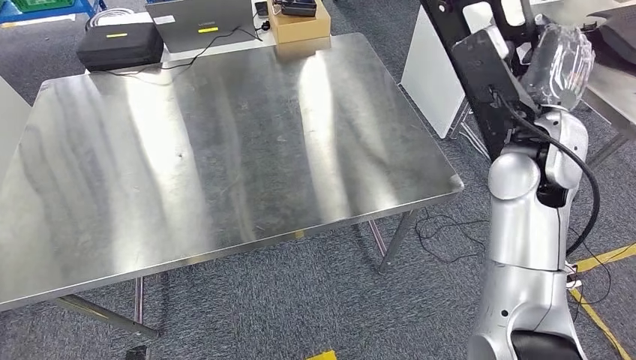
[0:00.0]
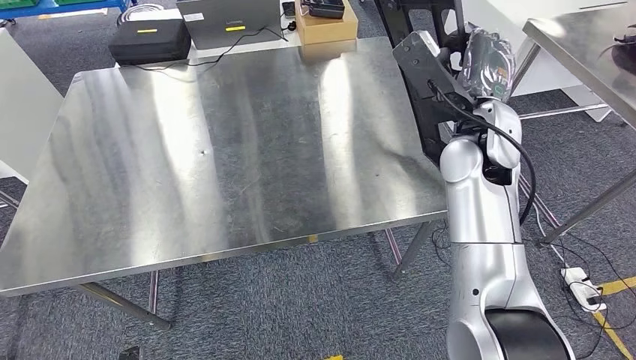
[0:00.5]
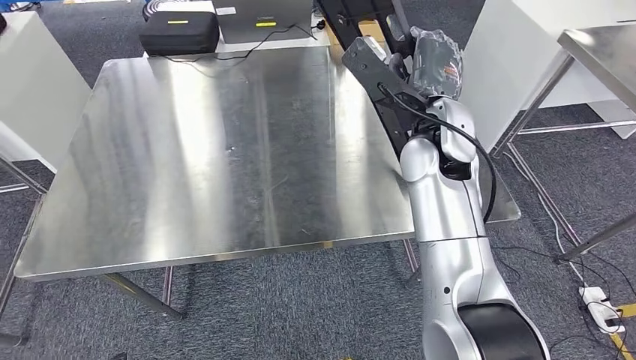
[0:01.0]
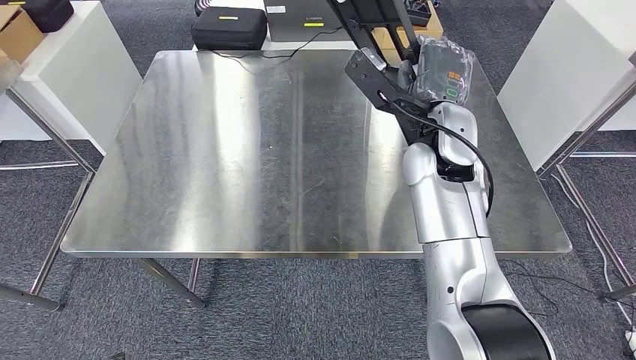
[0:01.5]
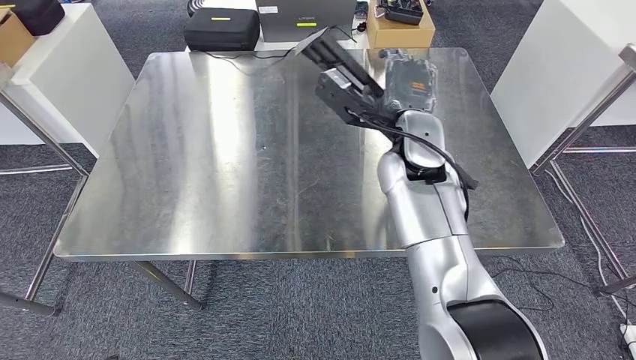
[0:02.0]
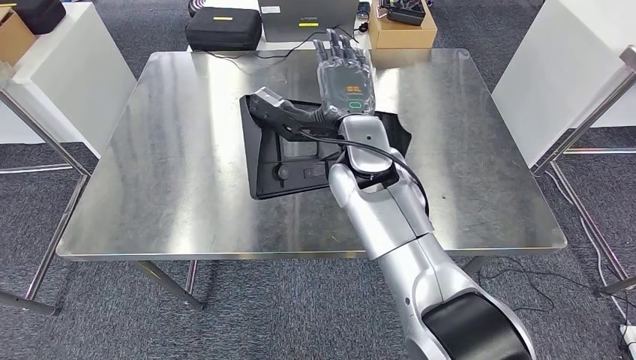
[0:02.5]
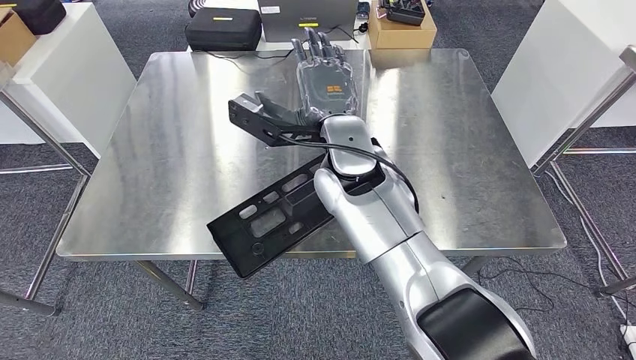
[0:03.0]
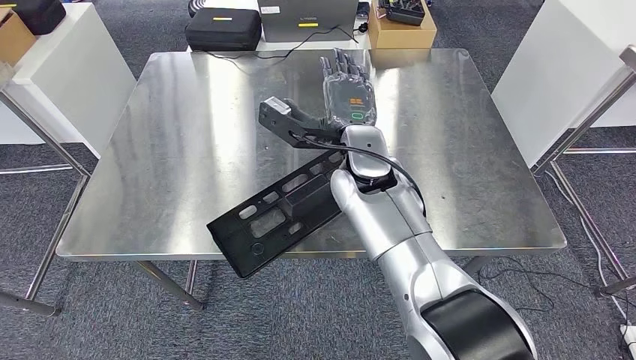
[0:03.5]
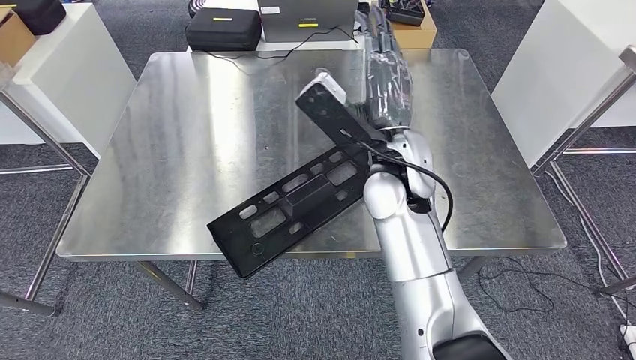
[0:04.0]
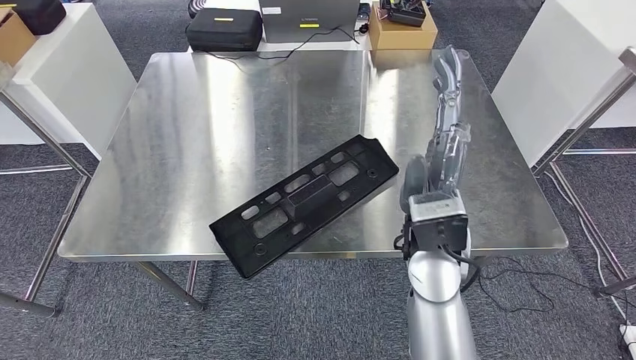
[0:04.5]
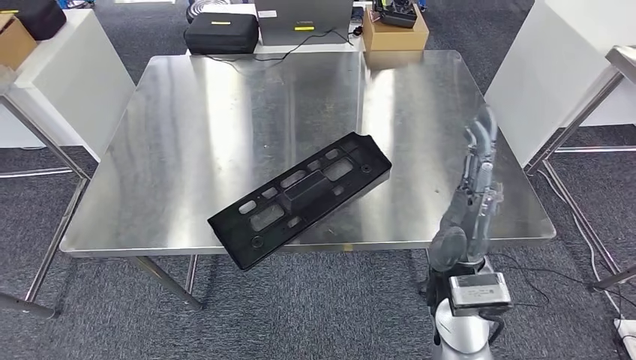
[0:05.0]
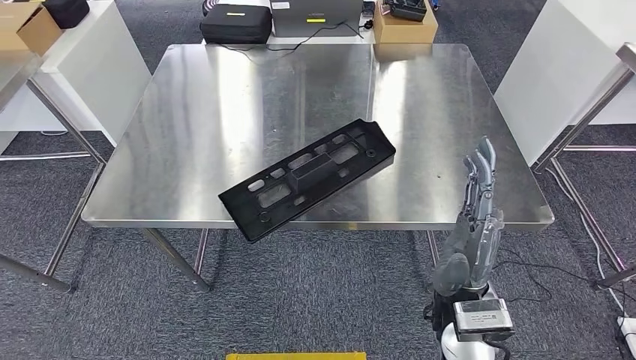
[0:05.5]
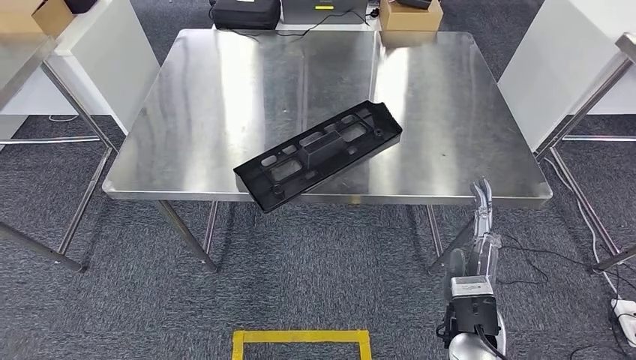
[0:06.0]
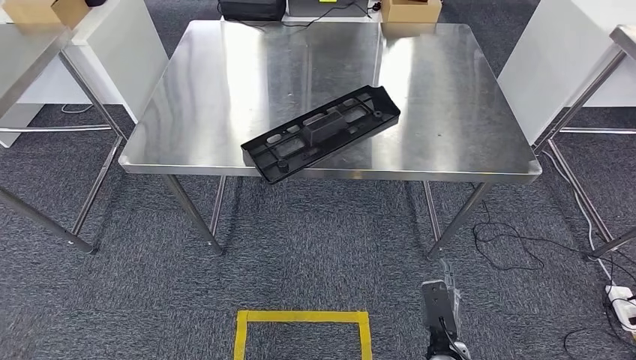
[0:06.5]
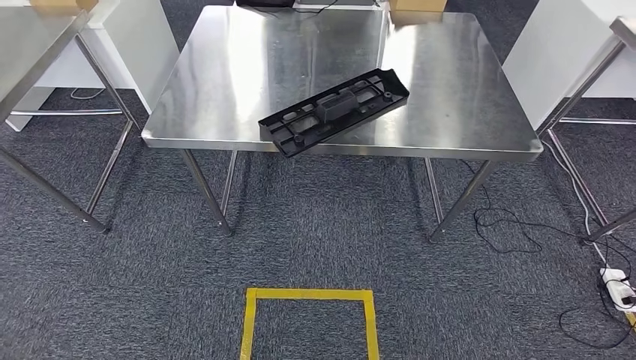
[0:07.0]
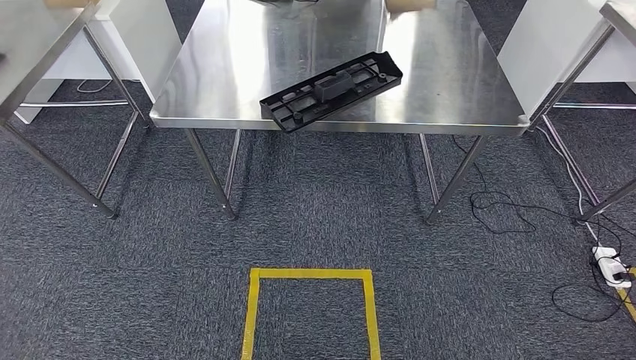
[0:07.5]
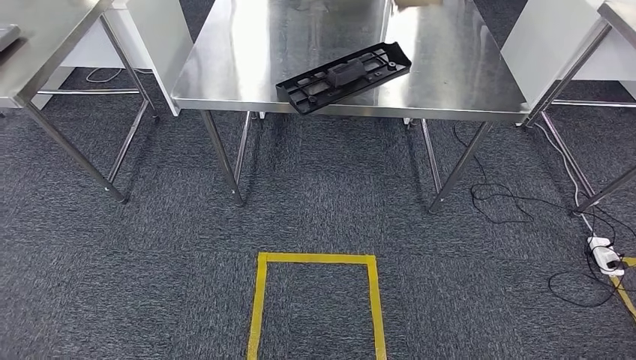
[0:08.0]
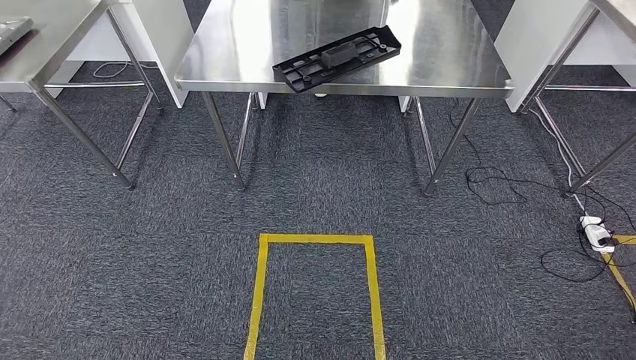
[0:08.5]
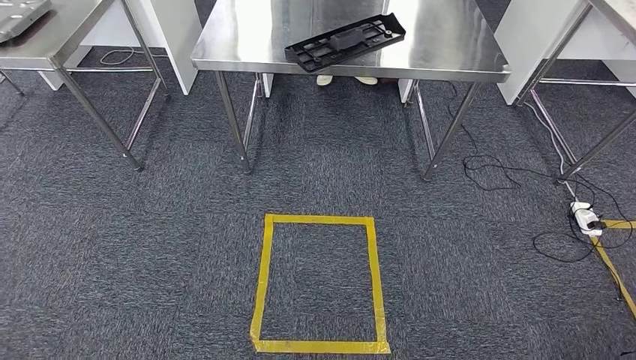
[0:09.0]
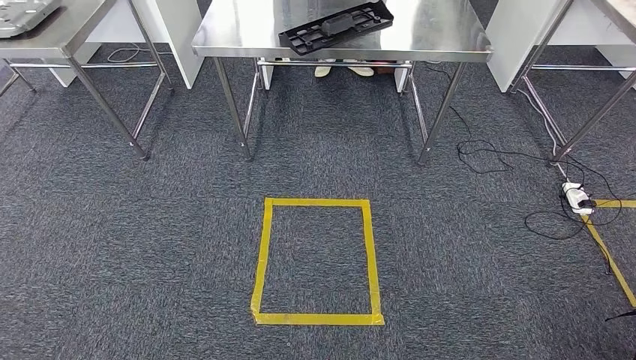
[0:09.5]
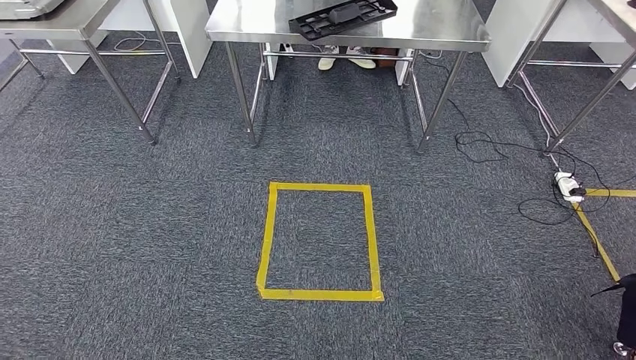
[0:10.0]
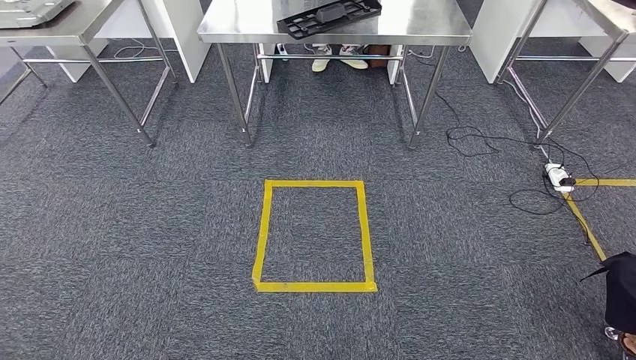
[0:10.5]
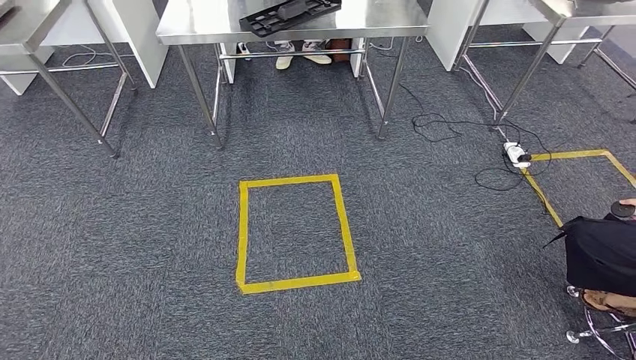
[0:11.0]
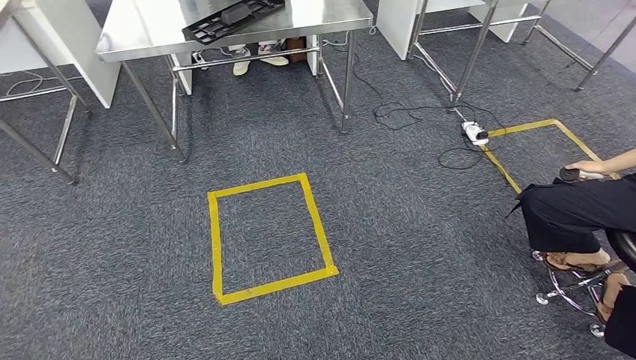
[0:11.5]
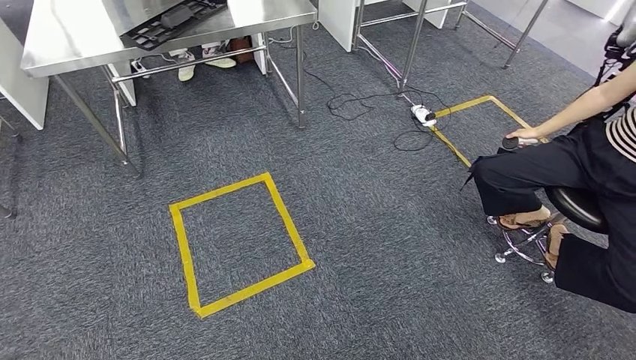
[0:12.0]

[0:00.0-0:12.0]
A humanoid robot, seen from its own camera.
Step, 0:00.0 to 0:04.5: Insert the large material into the corresponding slot on the workbench.

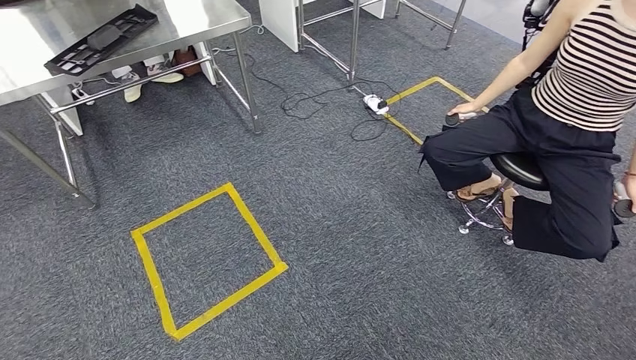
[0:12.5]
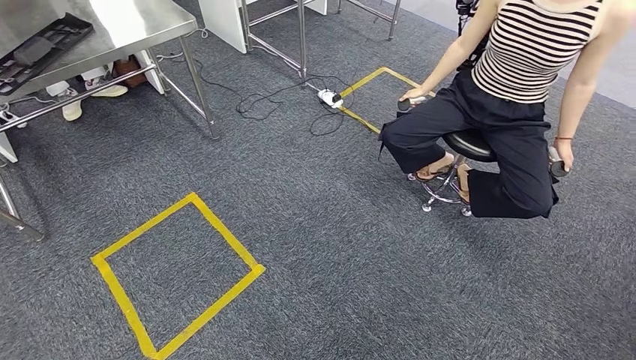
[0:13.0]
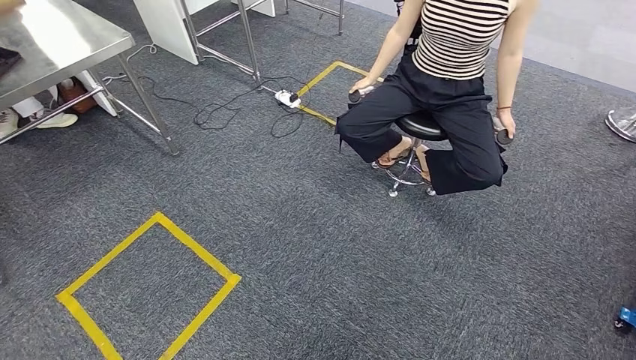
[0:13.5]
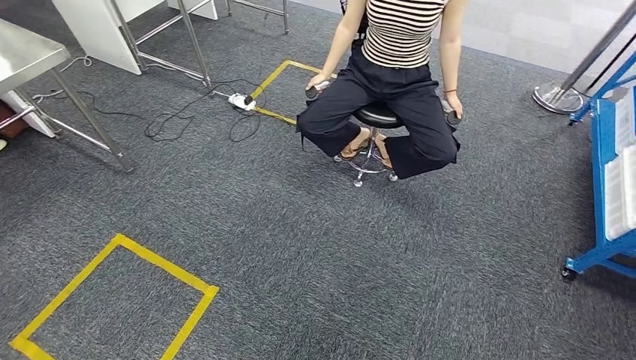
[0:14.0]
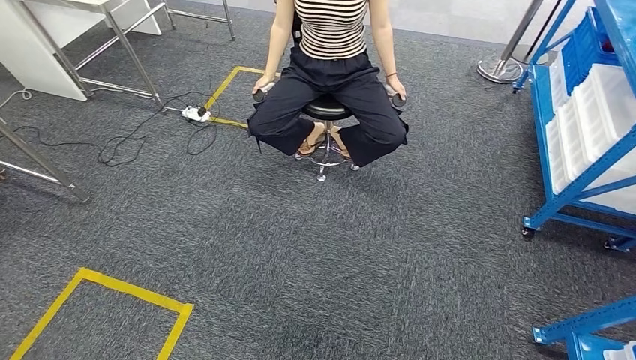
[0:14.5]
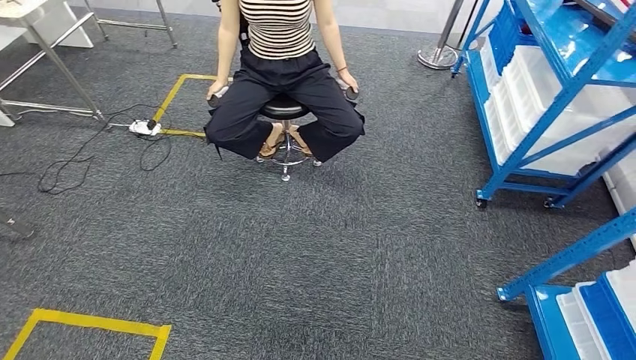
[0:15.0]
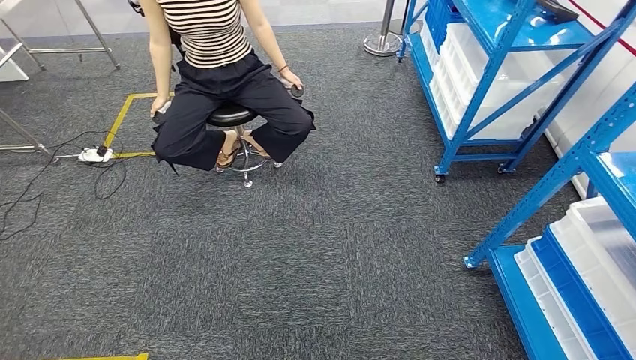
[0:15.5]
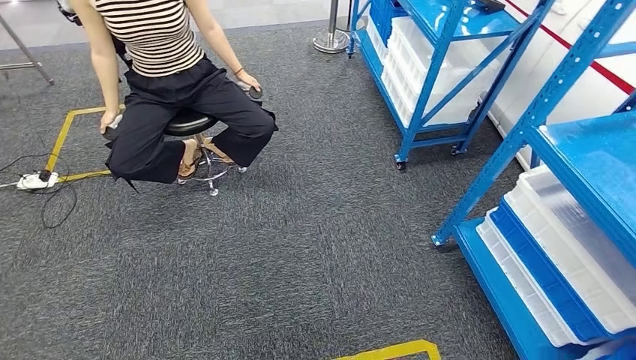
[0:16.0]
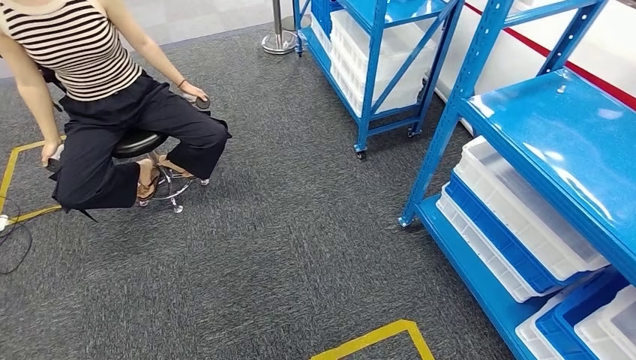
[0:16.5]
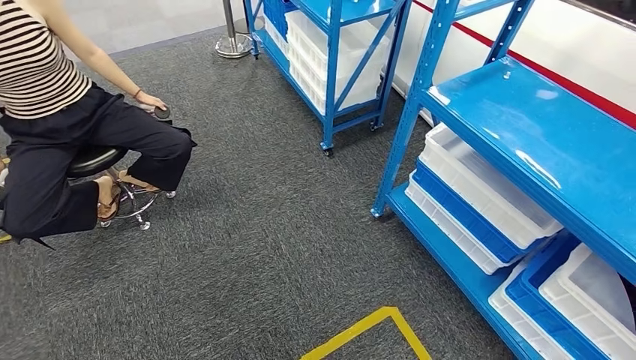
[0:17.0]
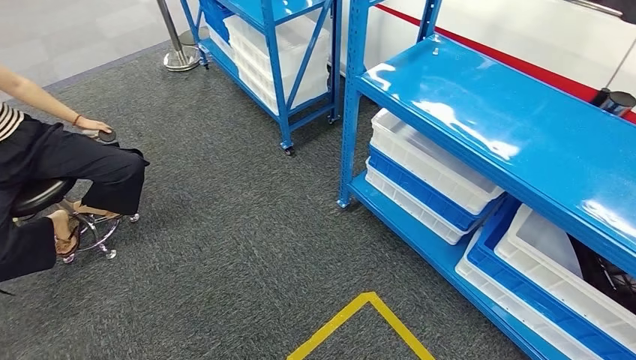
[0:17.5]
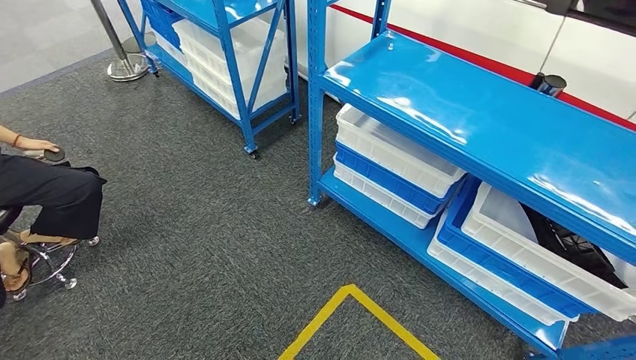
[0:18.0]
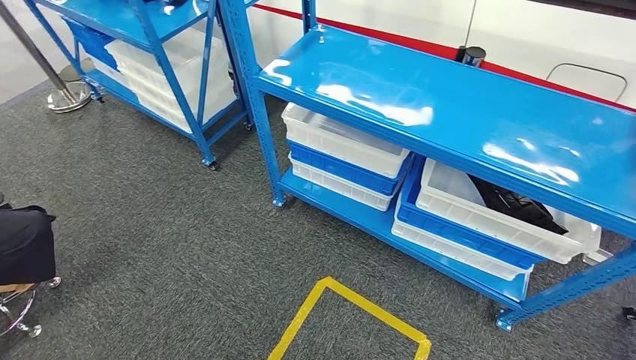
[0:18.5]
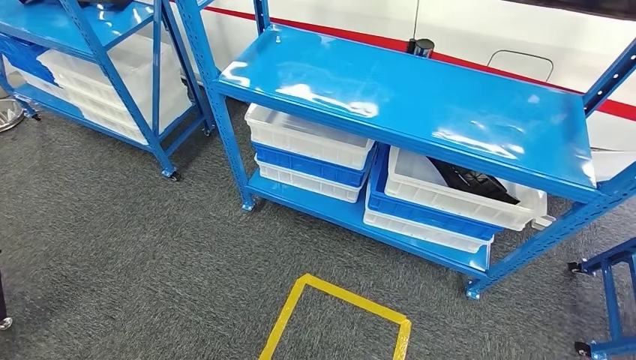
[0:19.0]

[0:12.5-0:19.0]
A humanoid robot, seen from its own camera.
Step, 0:12.5 to 0:19.0: Return to the initial position at the shelf.

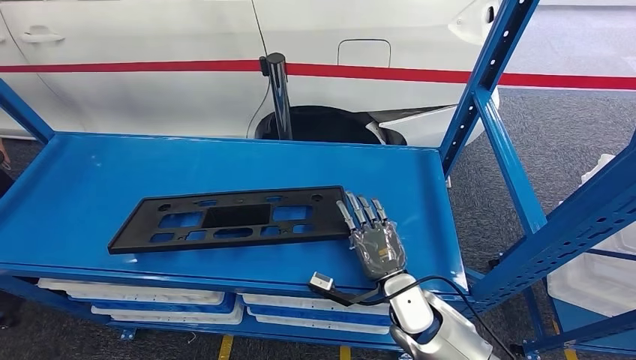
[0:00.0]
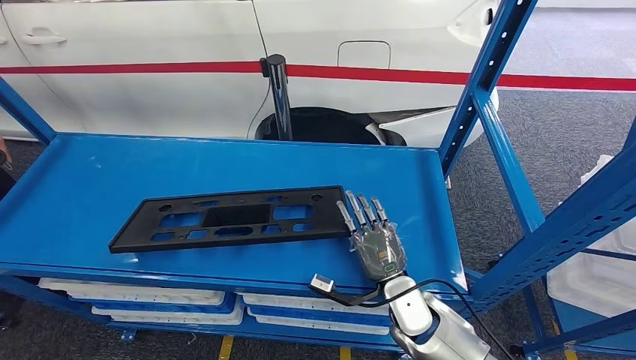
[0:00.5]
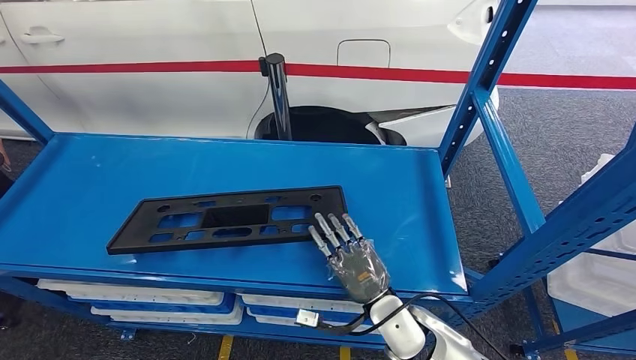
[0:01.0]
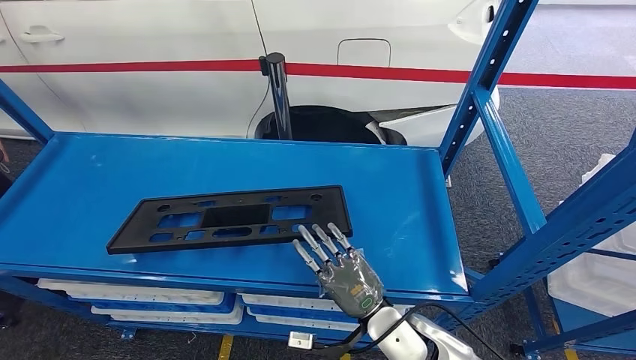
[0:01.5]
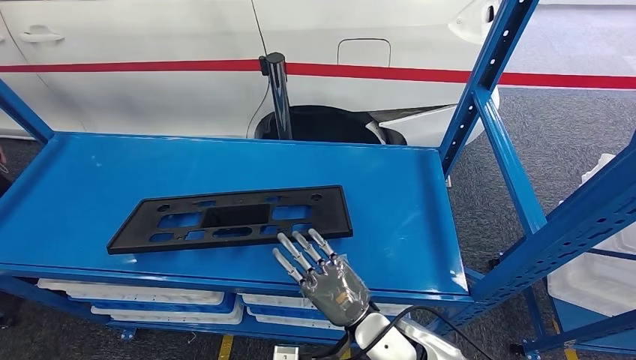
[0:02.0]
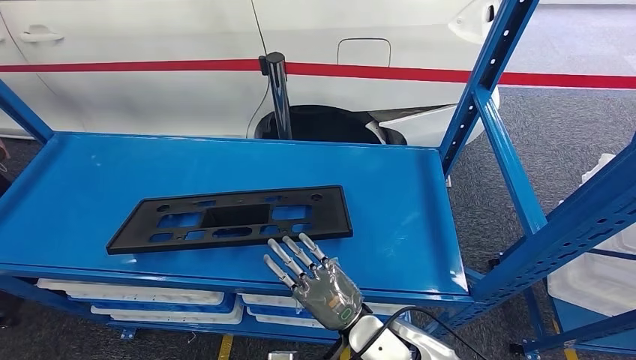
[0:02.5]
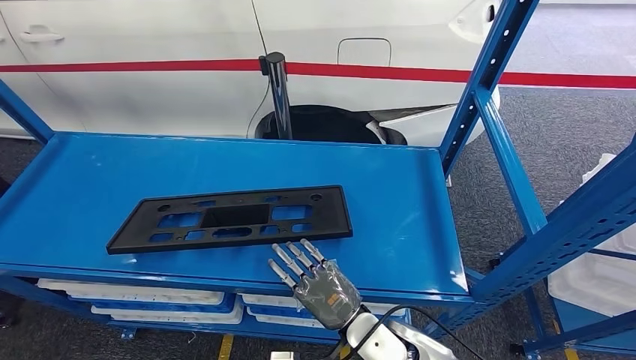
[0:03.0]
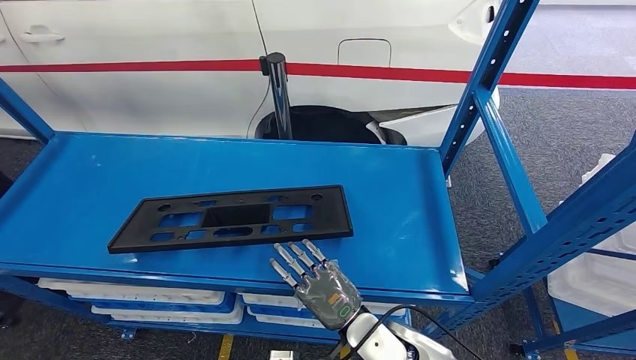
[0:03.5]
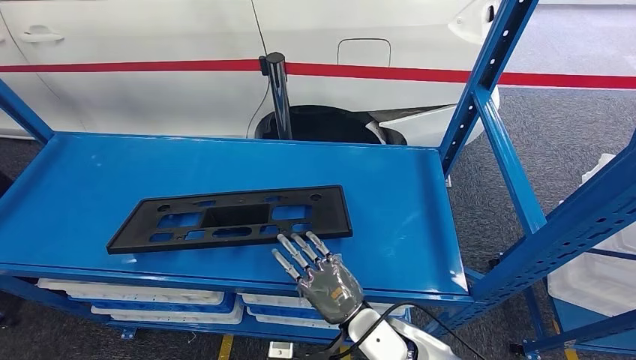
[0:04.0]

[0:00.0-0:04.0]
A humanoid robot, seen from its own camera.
0:00.0 to 0:02.0: The right hand travels backward by about 5 cm.
0:02.0 to 0:04.0: The left hand heads to the left, covering roughly 5 cm.
